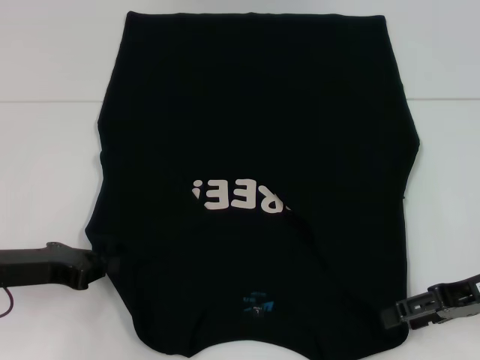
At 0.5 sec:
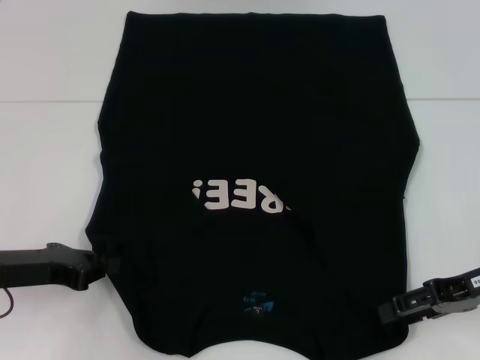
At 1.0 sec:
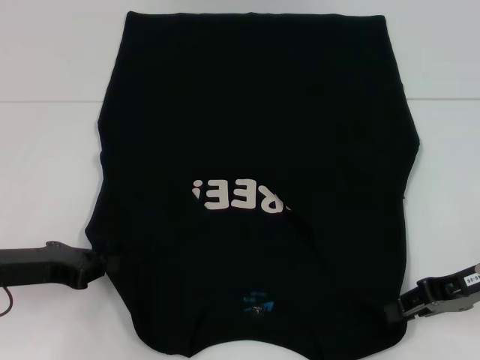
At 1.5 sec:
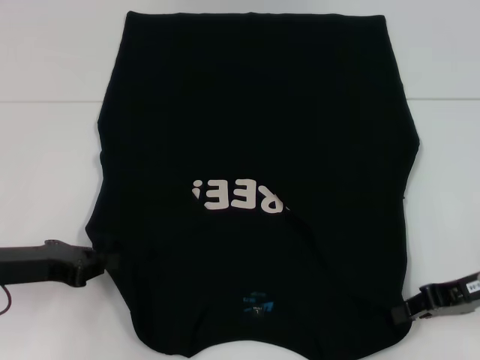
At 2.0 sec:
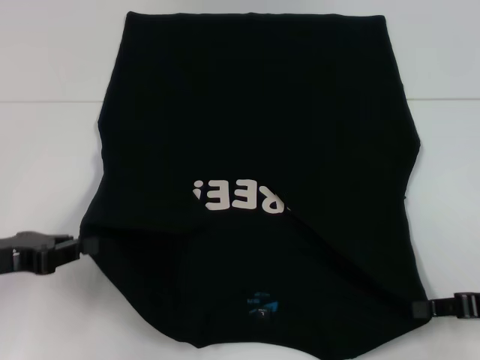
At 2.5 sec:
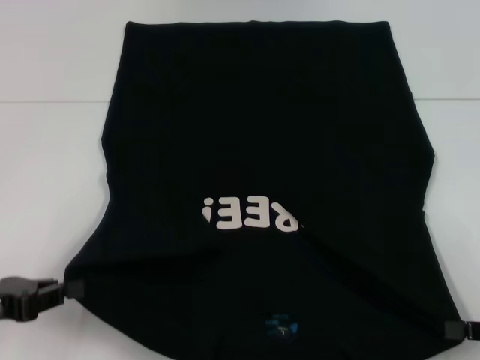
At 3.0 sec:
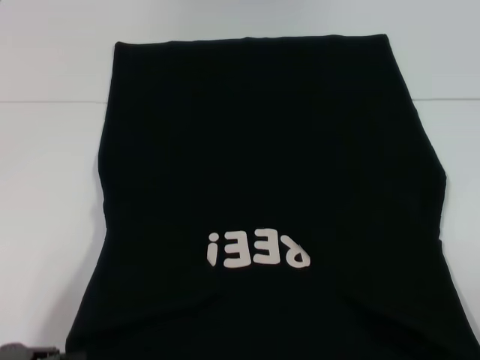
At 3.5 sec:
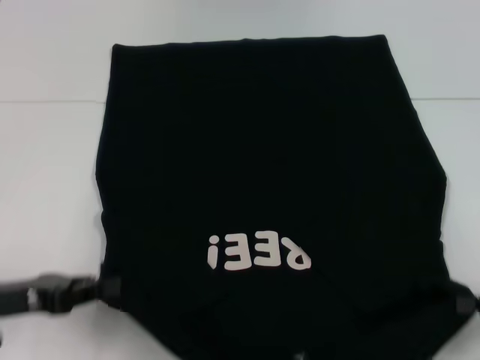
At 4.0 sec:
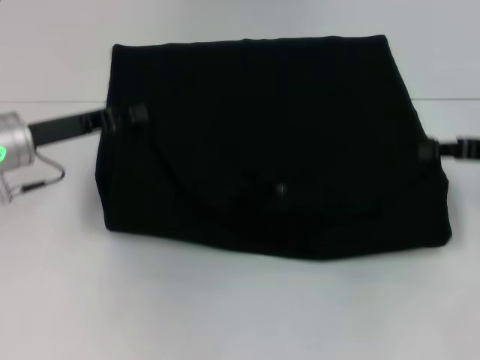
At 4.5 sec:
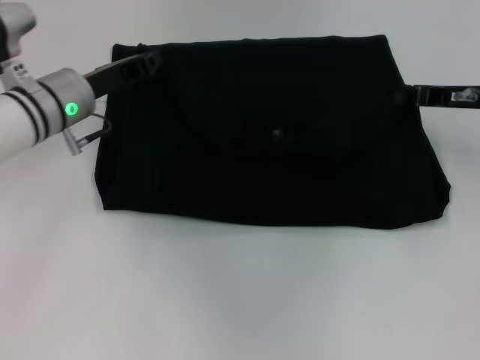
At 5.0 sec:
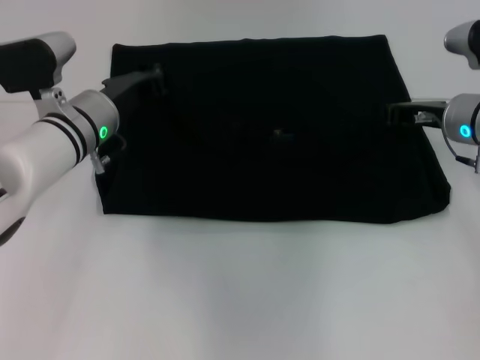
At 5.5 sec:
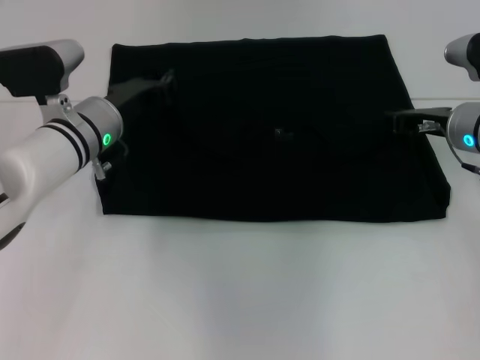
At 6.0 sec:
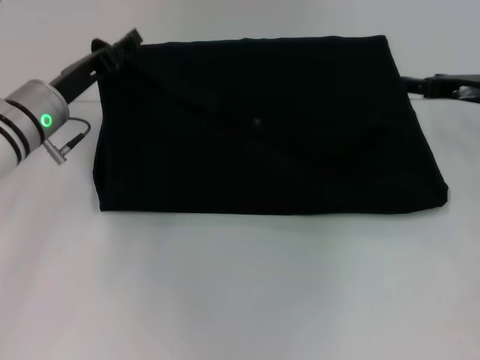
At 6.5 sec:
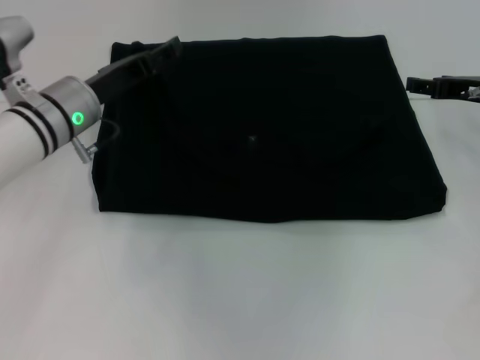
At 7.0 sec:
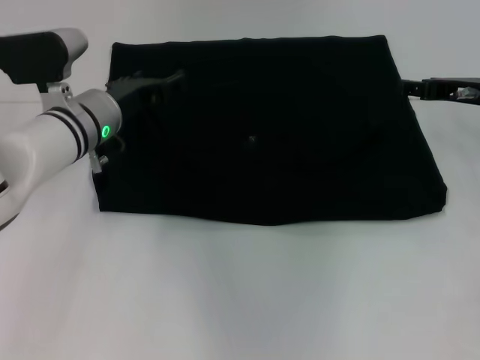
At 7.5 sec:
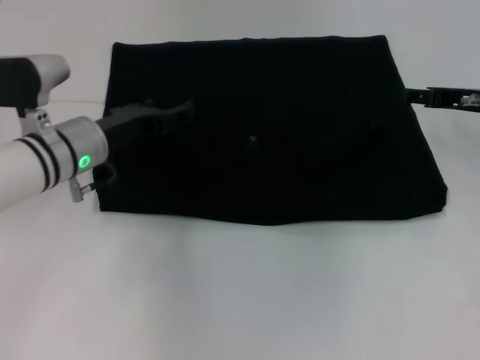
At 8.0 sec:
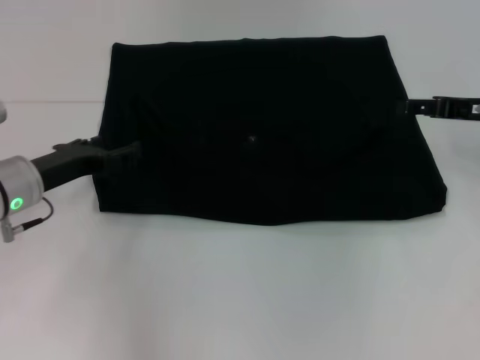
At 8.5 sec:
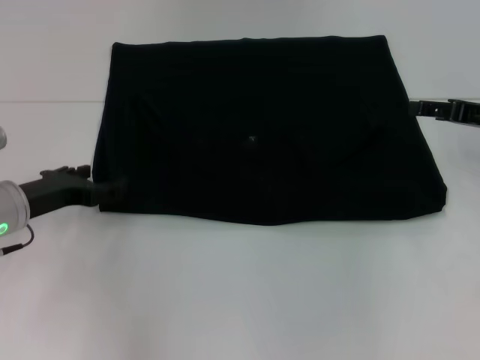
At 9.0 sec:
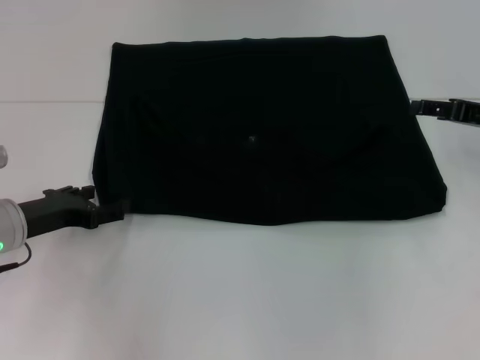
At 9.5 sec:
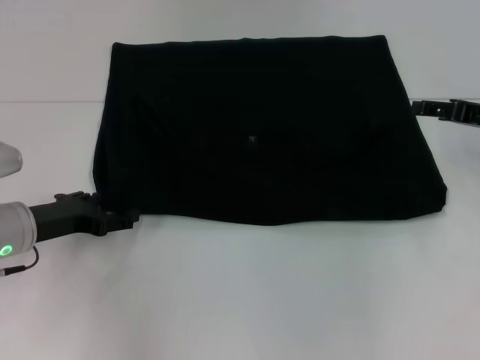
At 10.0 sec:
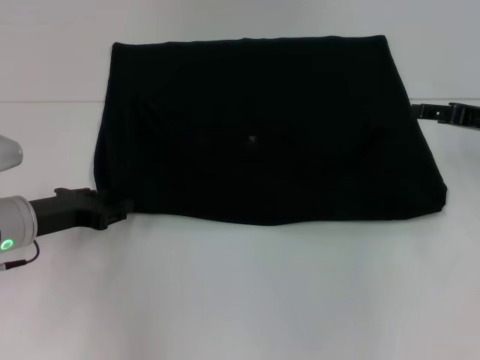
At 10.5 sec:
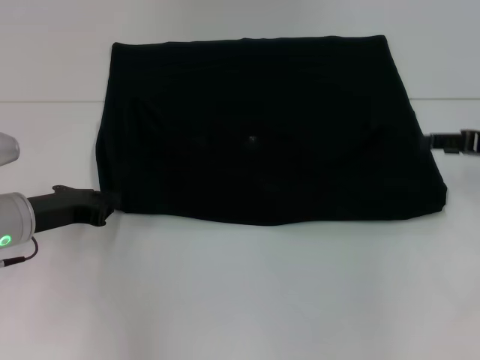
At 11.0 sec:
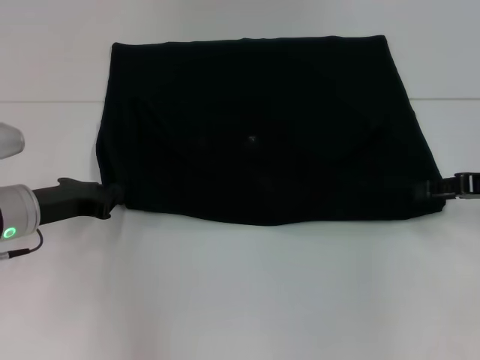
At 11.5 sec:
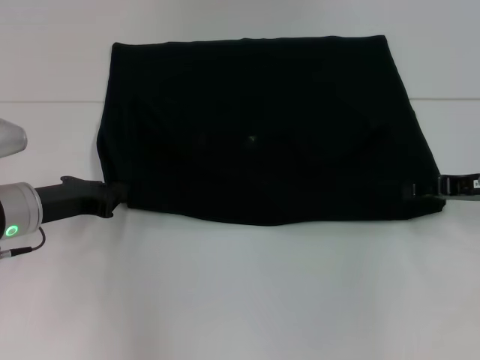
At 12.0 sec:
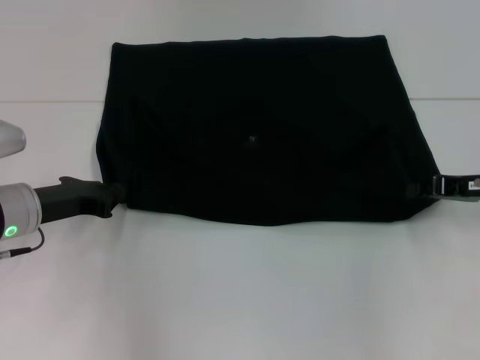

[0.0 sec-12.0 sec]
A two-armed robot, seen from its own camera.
Step, 2.0 sec to 6.5 sec: Fold the clothes with your left hand.
Step, 2.0 sec to 6.5 sec: Fold the clothes with your right hand.
0.0 sec to 2.0 sec: The right gripper ends up about 5 cm from where it was, and closes.
2.0 sec to 4.0 sec: The right gripper goes approximately 10 cm forward and upward. The left gripper heads forward and to the right, covering about 10 cm.
4.0 sec to 6.0 sec: The left gripper opens up, while the right gripper heads forward, covering approximately 5 cm, and opens its fingers.
6.0 sec to 8.0 sec: The left gripper is displaced backward by about 5 cm.
8.0 sec to 10.0 sec: The grippers move only a little.
10.0 sec to 12.0 sec: The left gripper closes. The right gripper closes.

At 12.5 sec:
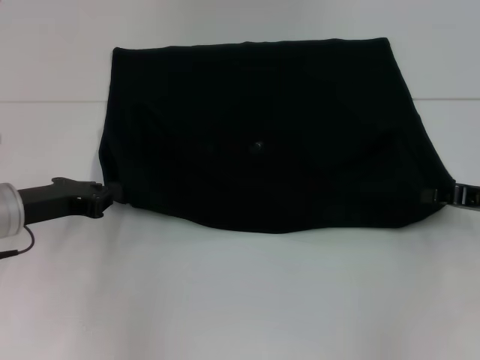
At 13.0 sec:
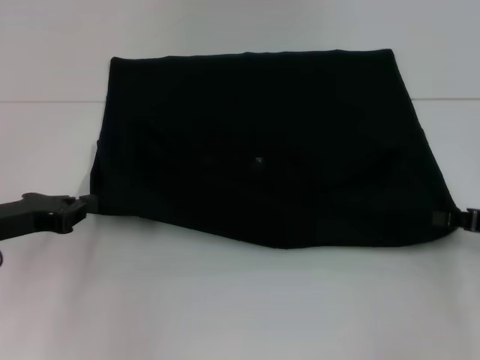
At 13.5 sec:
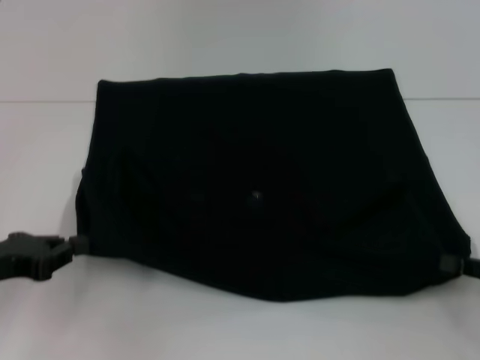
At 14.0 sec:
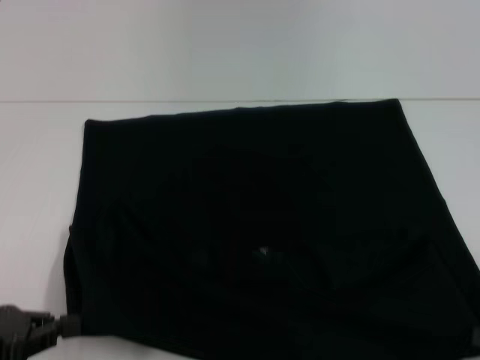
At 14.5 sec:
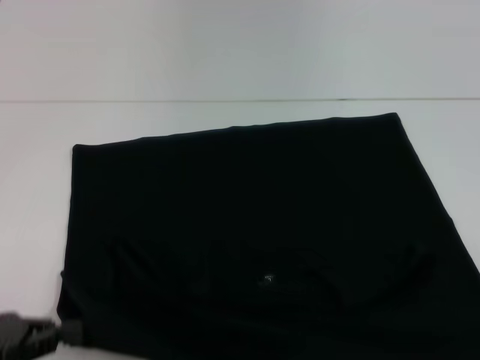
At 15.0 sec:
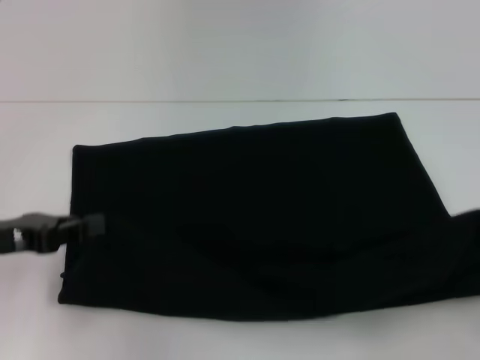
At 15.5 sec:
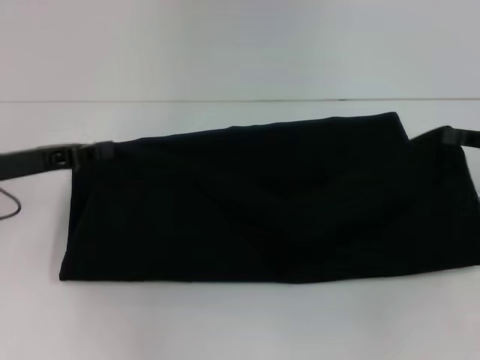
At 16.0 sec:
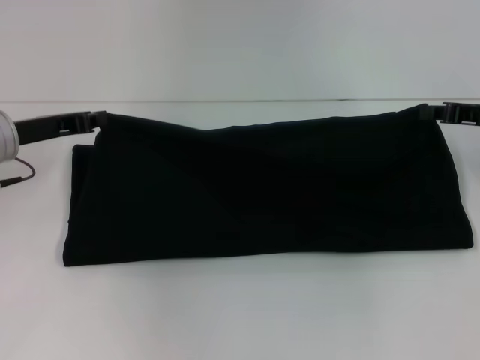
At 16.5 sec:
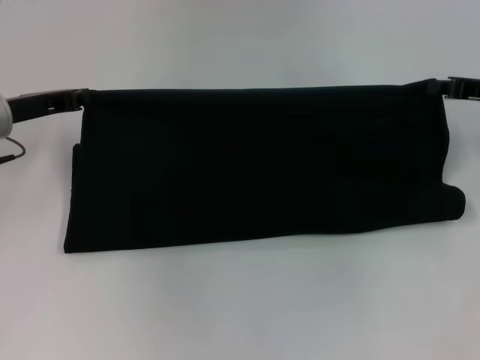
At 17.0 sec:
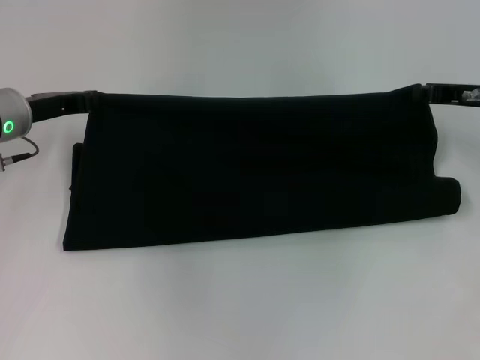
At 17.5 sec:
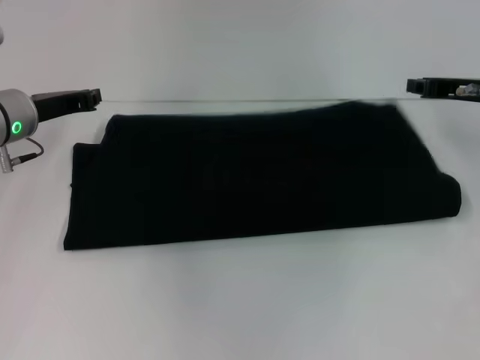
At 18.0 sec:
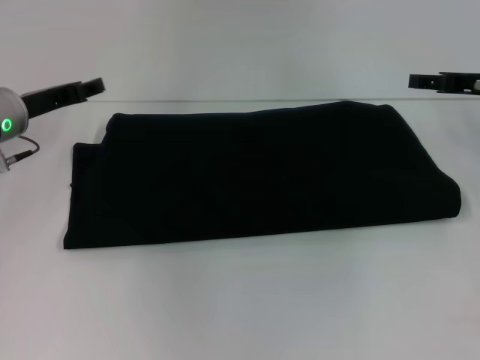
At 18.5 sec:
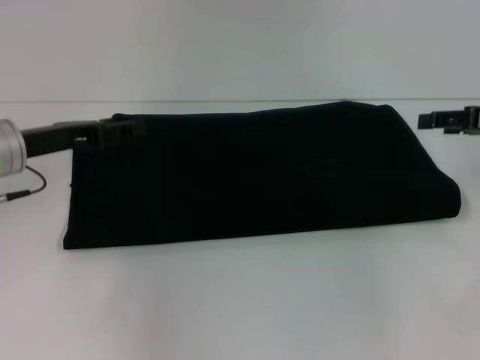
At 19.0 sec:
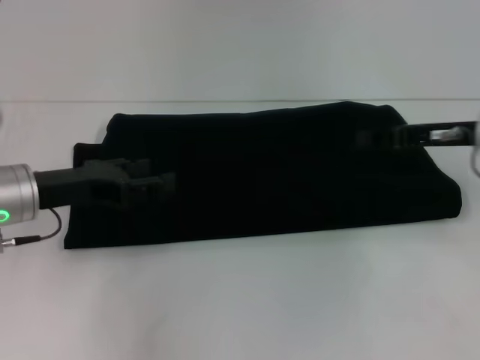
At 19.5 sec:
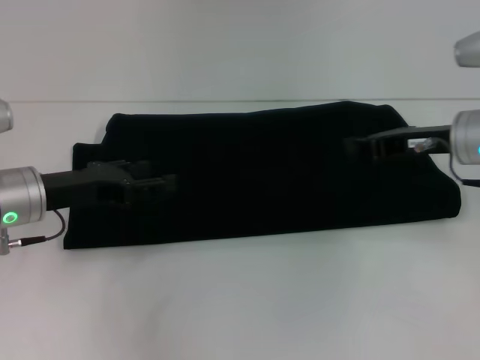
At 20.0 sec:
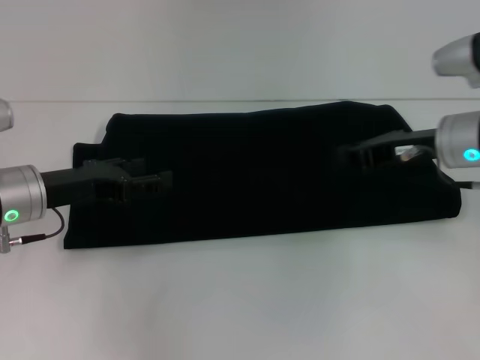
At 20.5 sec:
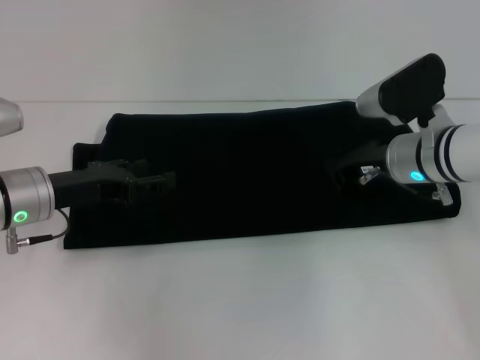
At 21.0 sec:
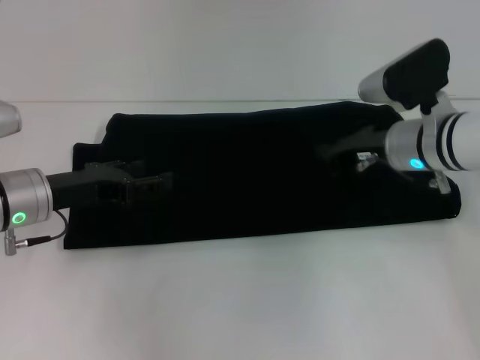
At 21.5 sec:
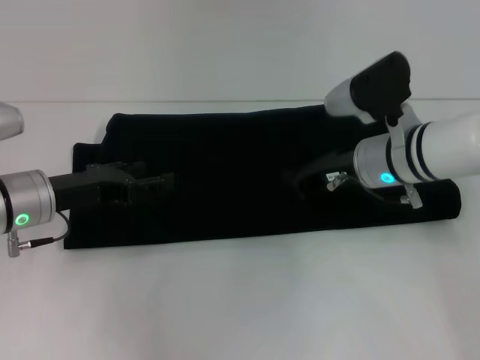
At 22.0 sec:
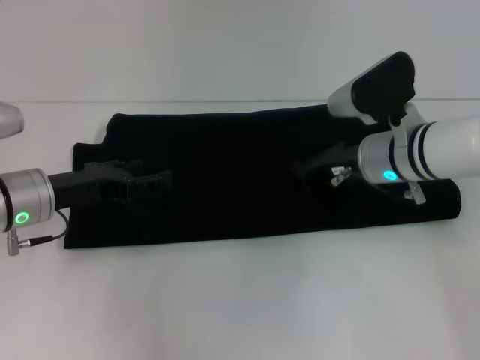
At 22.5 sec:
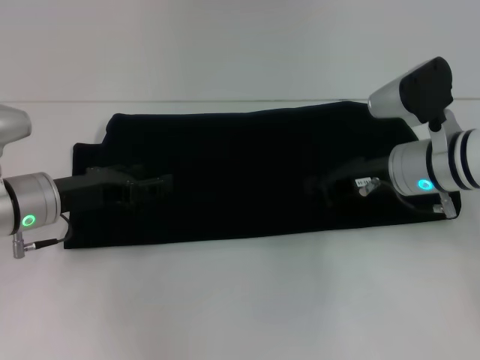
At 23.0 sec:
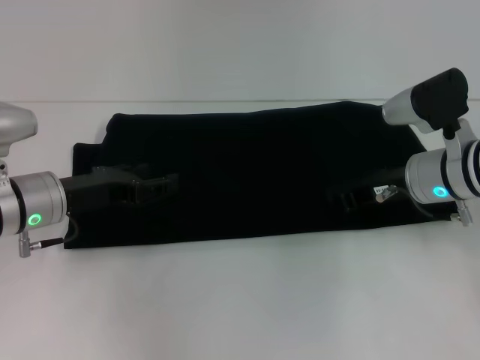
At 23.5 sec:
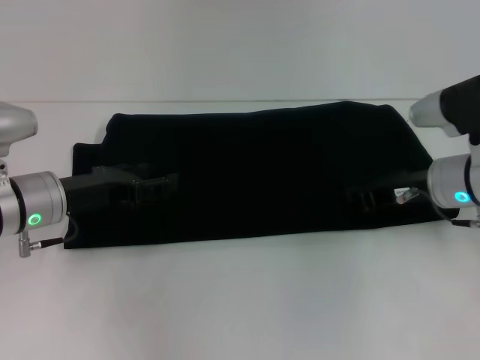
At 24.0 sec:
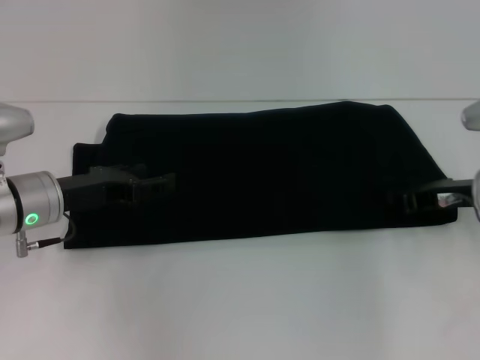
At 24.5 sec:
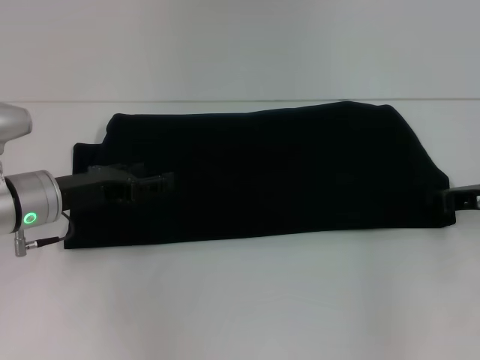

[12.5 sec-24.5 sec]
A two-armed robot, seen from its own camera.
Step, 14.5 sec to 17.0 sec: Fold the clothes with your right hand.
12.5 sec to 14.5 sec: Both grippers travel together backward, about 15 cm.
14.5 sec to 16.5 sec: Both grippers travel together forward, some 25 cm.
16.5 sec to 18.5 sec: The right gripper opens. The left gripper opens.
18.5 sec to 20.5 sec: The right gripper shifts approximately 15 cm to the left and downward, and closes up.
20.5 sec to 22.5 sec: The grippers move only a little.
22.5 sec to 24.5 sec: The right gripper travels to the right by approximately 15 cm.

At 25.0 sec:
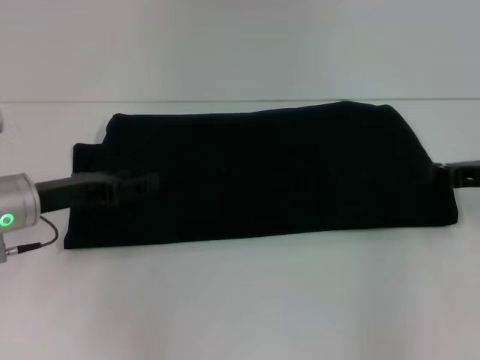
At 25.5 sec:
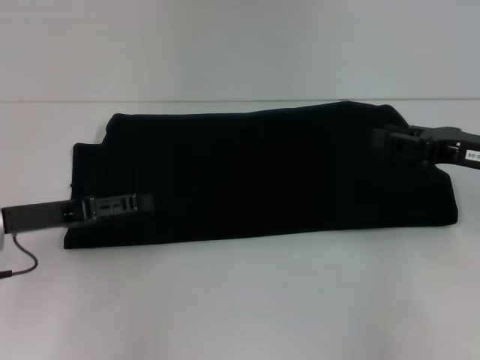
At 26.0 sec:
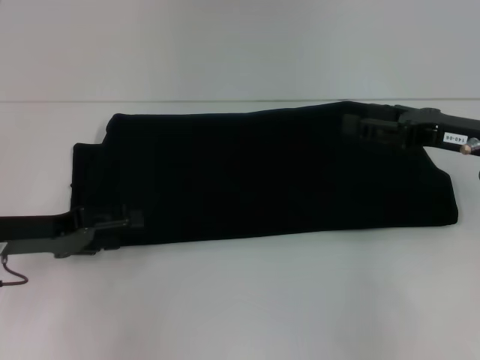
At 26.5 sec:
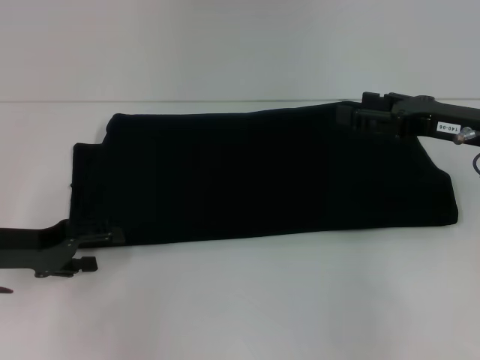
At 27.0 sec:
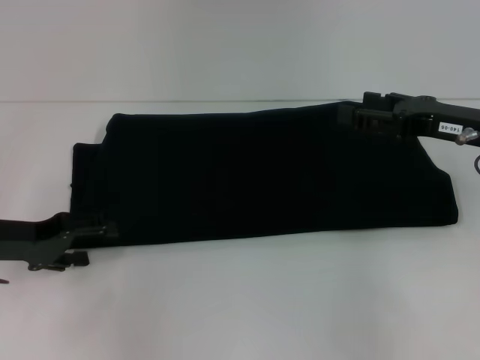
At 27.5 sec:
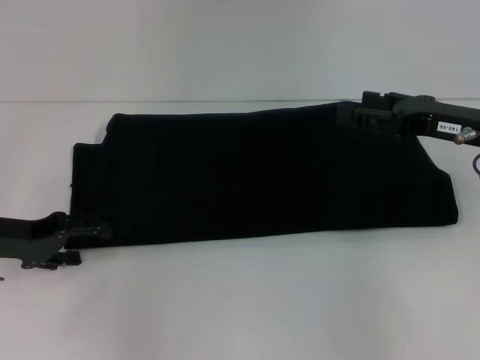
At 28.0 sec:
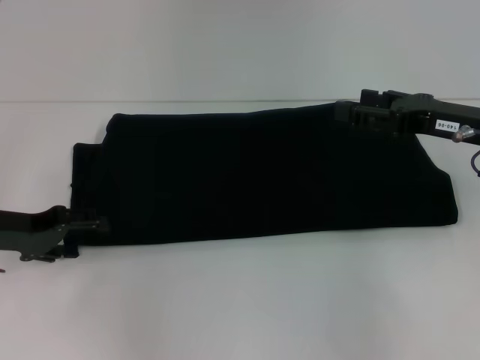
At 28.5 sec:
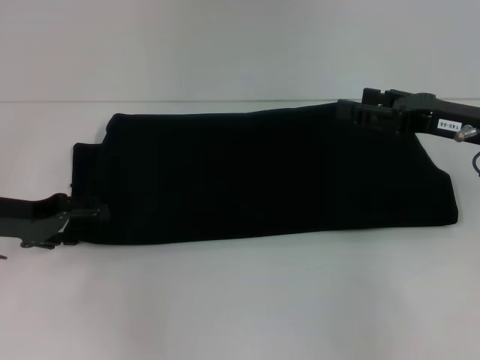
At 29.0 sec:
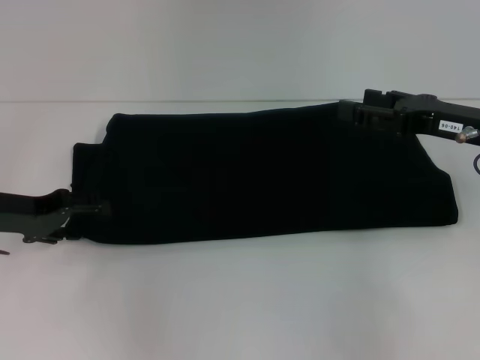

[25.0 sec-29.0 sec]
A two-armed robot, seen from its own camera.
25.0 sec to 27.0 sec: The left gripper shifts by some 5 cm. Meanwhile the right gripper heads to the left, covering approximately 5 cm, and opens its fingers.
27.0 sec to 29.0 sec: The grippers stay close to where they were, moving slightly.
